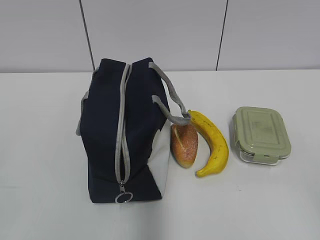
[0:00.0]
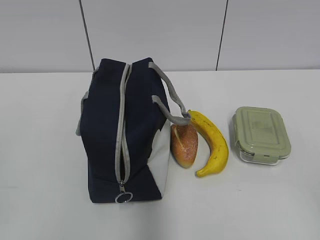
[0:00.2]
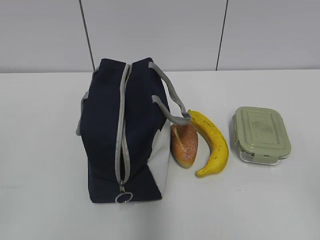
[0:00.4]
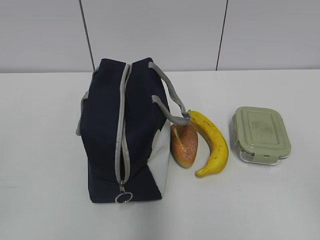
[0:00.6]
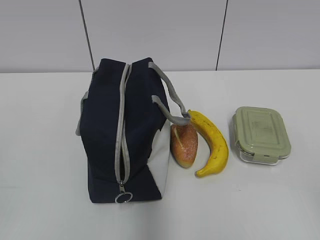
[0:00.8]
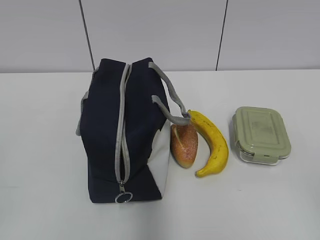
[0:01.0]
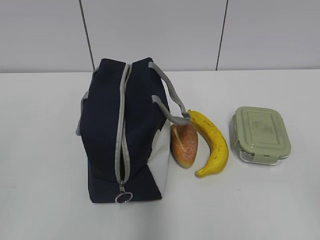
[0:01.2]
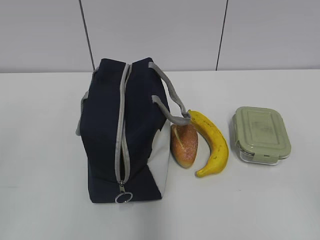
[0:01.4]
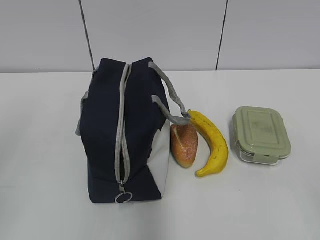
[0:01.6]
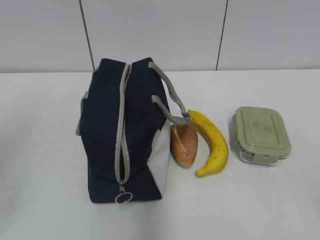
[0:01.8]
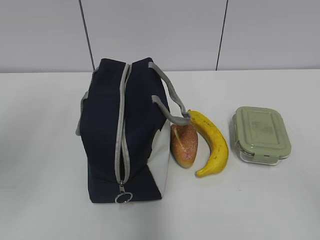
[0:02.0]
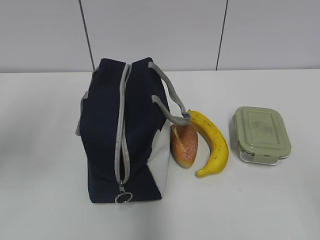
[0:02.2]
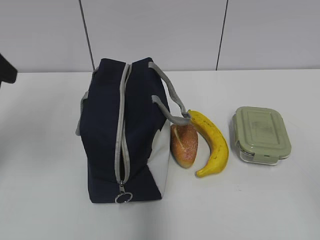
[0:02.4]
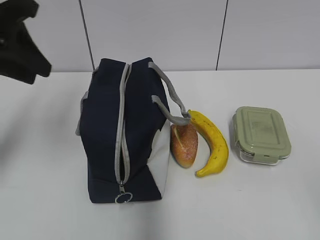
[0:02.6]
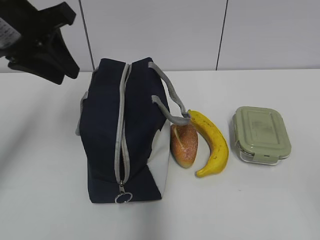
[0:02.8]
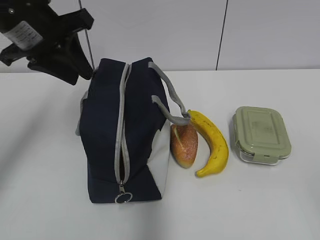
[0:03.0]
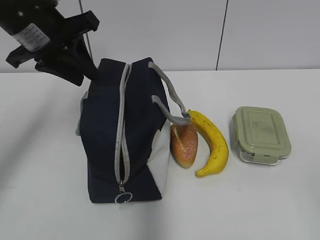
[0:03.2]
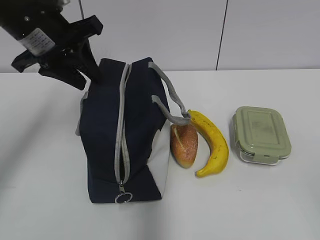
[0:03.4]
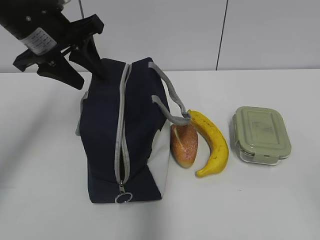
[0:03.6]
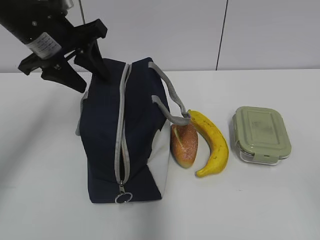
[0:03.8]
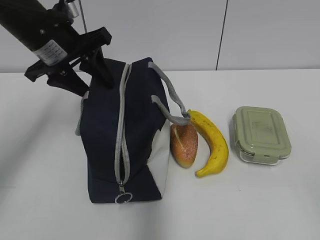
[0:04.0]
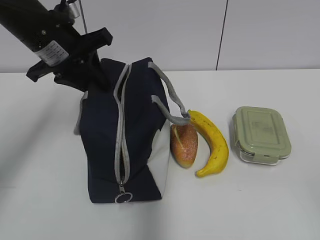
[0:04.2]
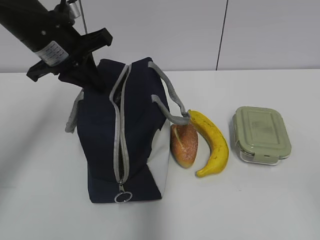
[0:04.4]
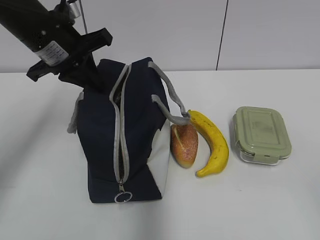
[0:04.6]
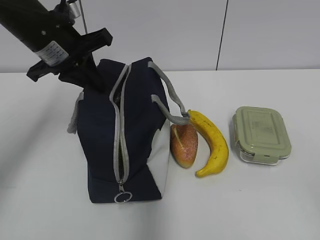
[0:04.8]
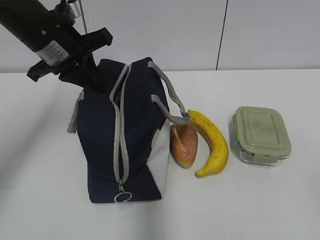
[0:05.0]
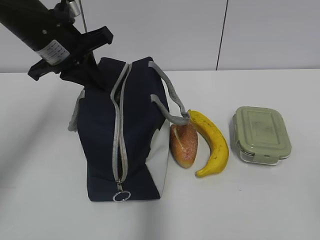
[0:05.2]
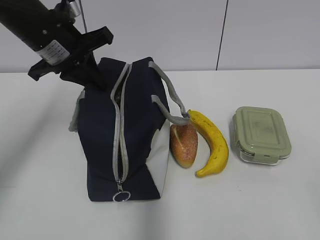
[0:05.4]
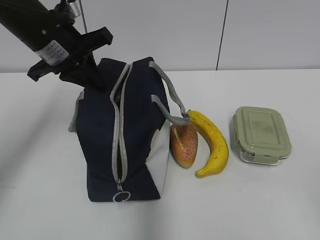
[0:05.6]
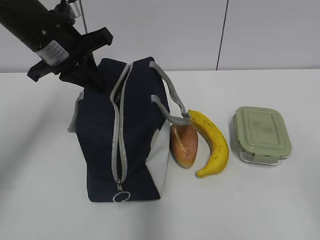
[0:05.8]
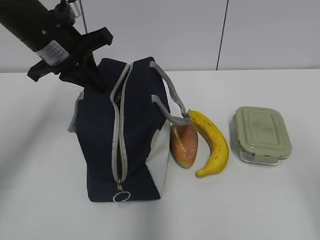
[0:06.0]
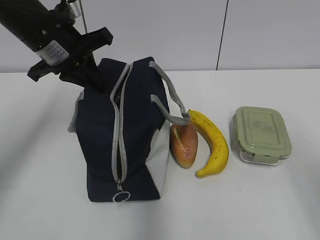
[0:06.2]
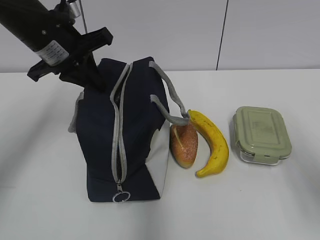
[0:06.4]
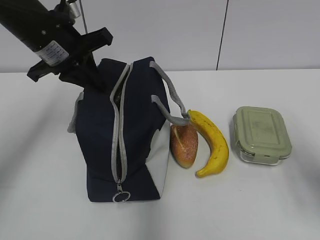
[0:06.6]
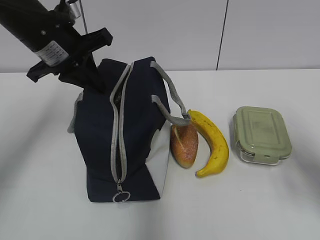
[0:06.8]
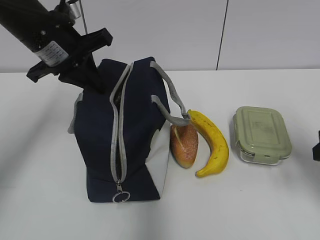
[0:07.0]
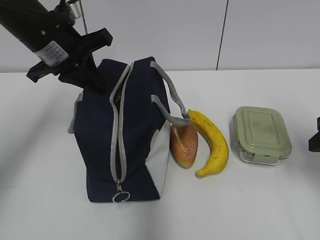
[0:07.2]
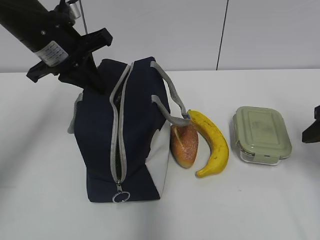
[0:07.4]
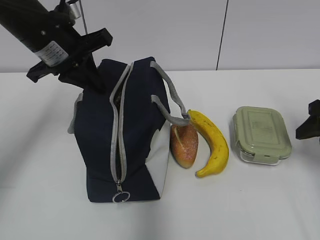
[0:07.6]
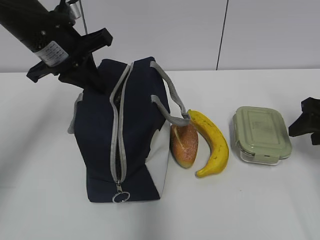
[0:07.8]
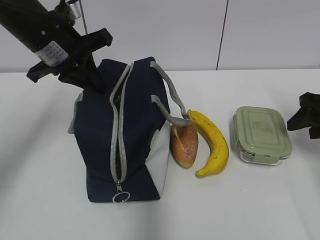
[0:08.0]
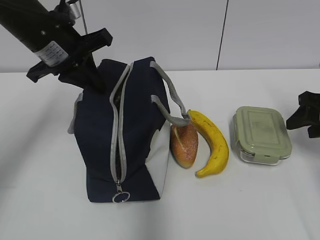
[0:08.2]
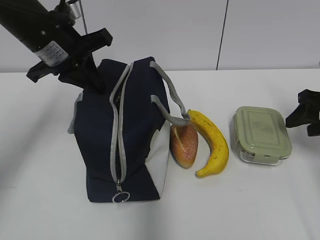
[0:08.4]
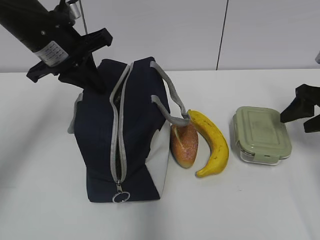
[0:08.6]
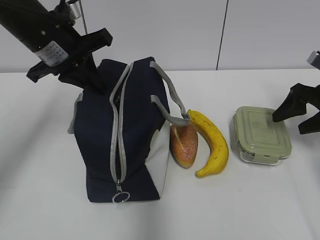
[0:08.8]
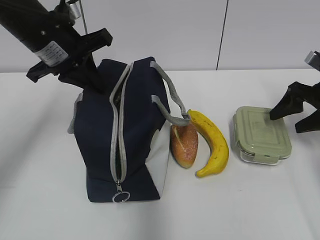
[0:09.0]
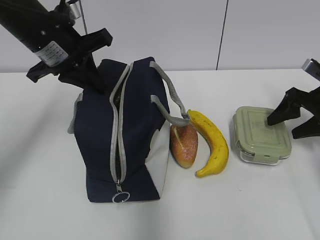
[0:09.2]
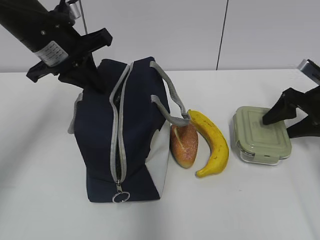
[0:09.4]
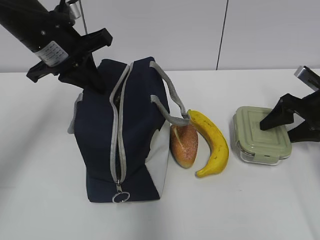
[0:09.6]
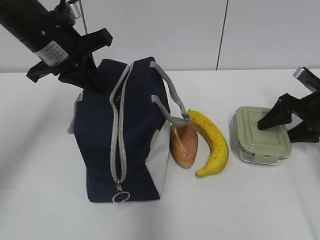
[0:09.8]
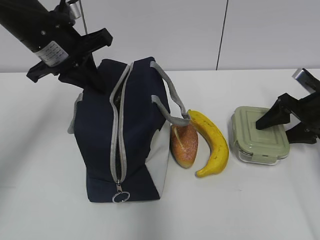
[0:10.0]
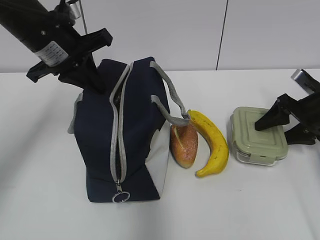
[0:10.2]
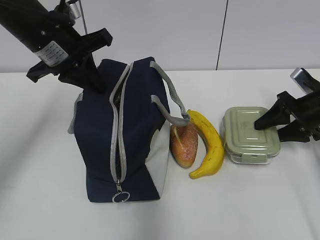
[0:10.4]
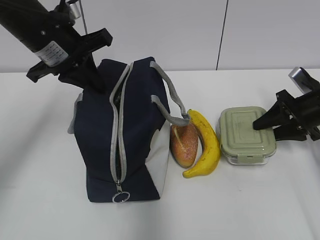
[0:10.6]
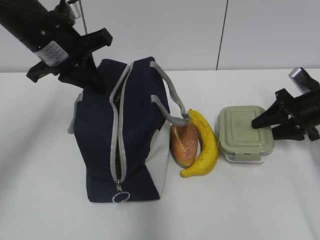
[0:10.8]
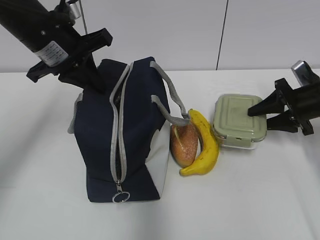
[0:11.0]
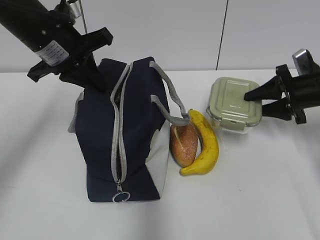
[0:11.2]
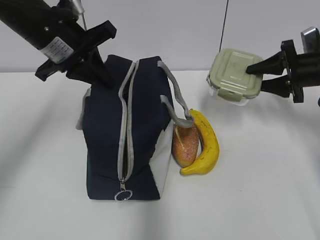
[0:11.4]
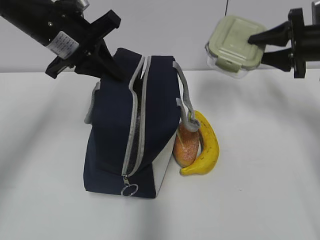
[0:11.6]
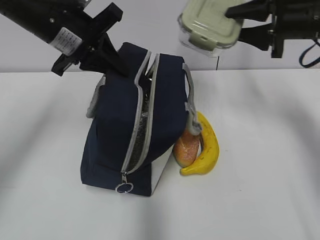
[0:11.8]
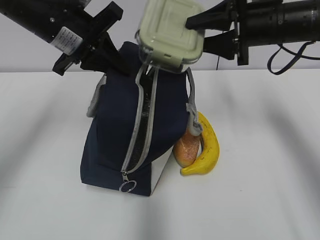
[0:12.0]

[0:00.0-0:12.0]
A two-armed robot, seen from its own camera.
0:01.6 to 0:03.0: The left gripper heads forward and to the right, covering some 30 cm.
0:03.0 to 0:04.4: The left gripper shifts by some 5 cm, and closes up.
0:04.4 to 0:06.0: The right gripper moves forward, about 5 cm.
0:06.0 to 0:07.6: The right gripper shifts roughly 25 cm forward.
0:07.6 to 0:09.0: The right gripper heads forward, covering some 10 cm.
0:09.0 to 0:10.4: The grippers move only a little.
0:10.4 to 0:12.0: The right gripper goes roughly 20 cm upward and to the left.

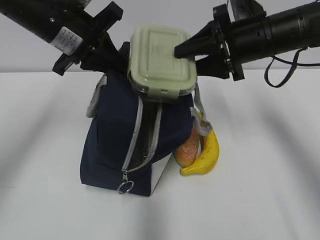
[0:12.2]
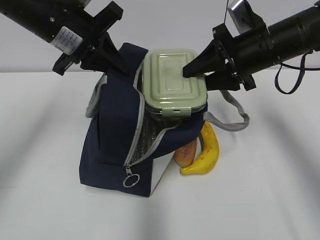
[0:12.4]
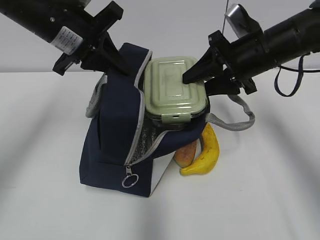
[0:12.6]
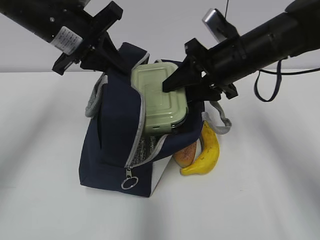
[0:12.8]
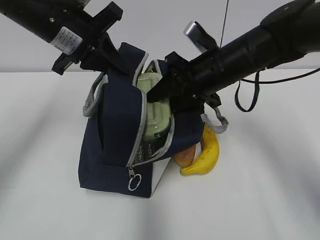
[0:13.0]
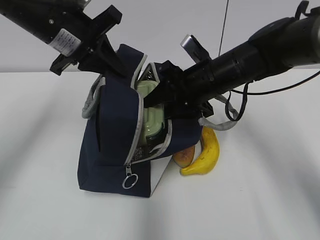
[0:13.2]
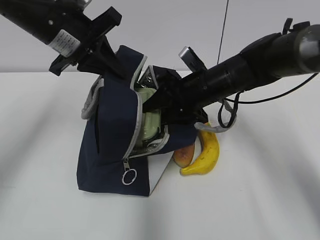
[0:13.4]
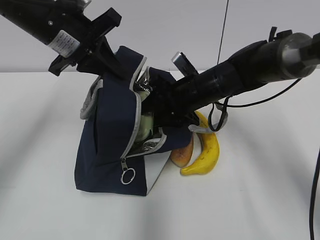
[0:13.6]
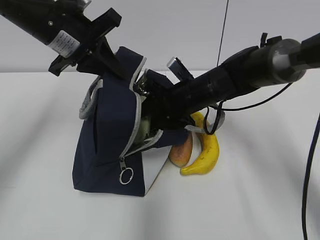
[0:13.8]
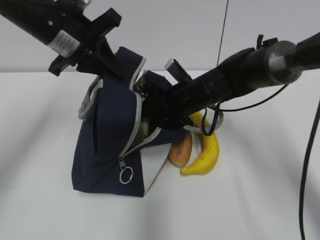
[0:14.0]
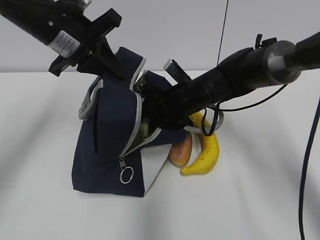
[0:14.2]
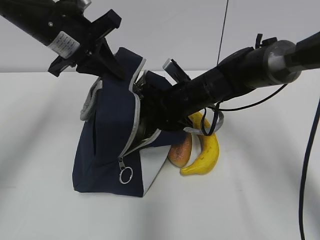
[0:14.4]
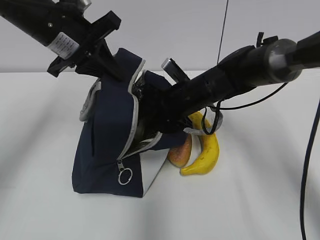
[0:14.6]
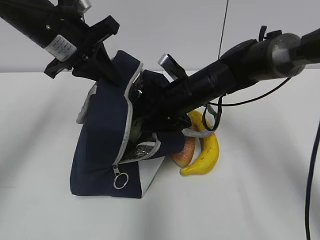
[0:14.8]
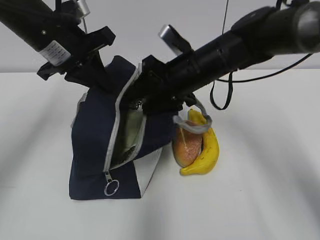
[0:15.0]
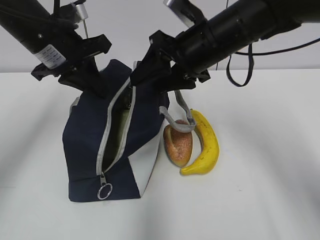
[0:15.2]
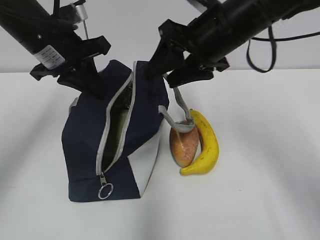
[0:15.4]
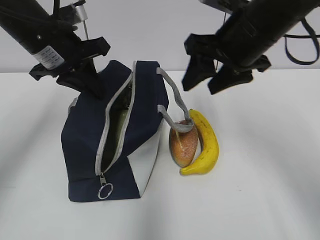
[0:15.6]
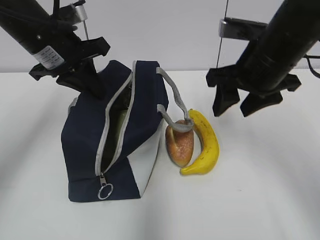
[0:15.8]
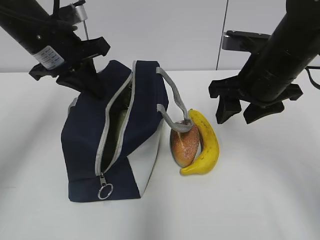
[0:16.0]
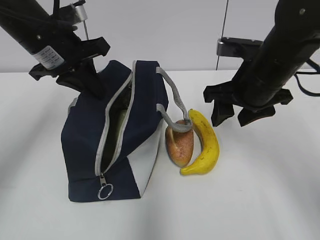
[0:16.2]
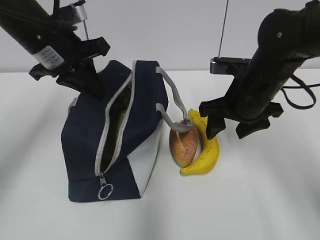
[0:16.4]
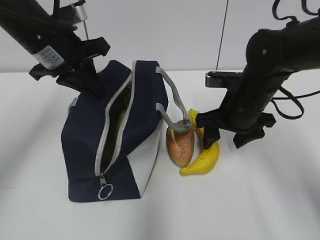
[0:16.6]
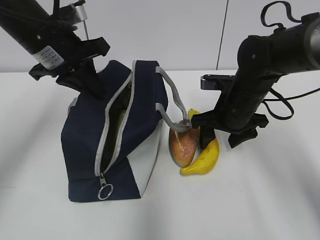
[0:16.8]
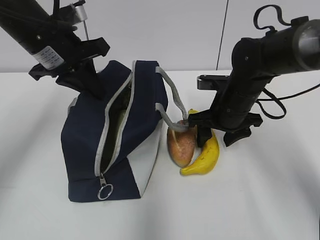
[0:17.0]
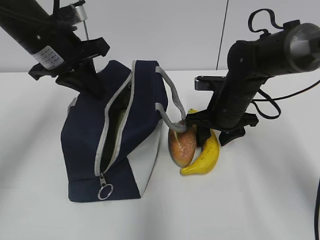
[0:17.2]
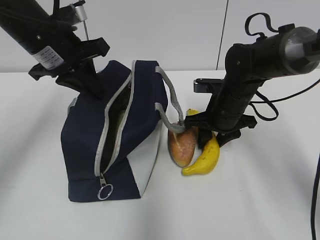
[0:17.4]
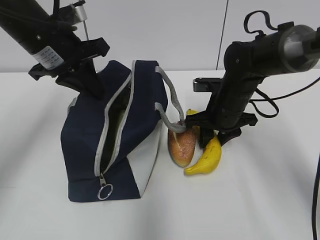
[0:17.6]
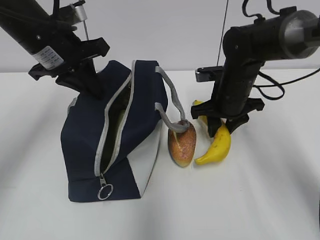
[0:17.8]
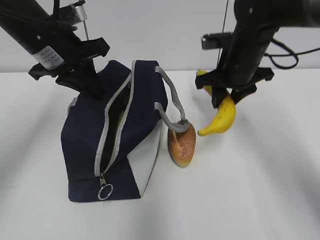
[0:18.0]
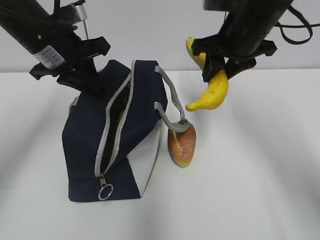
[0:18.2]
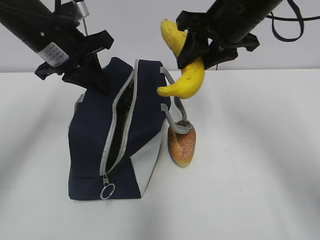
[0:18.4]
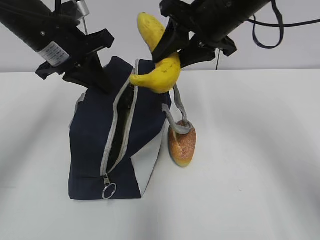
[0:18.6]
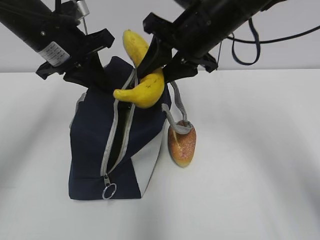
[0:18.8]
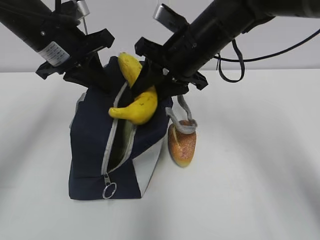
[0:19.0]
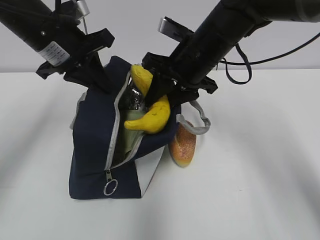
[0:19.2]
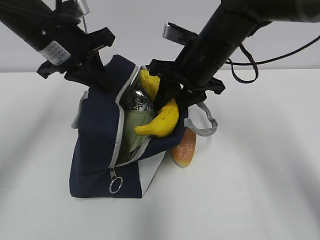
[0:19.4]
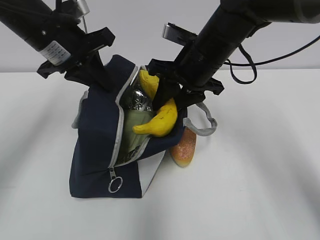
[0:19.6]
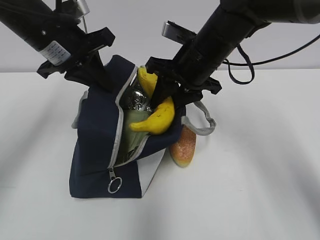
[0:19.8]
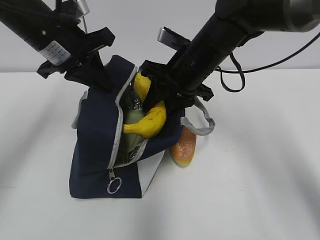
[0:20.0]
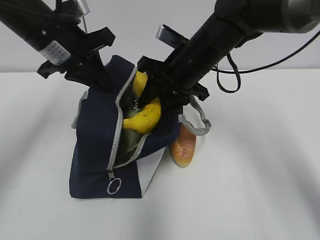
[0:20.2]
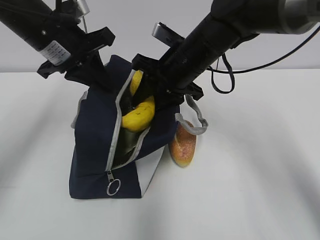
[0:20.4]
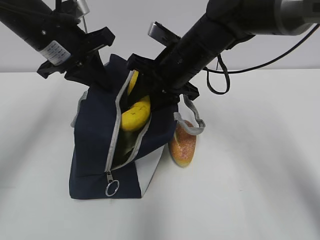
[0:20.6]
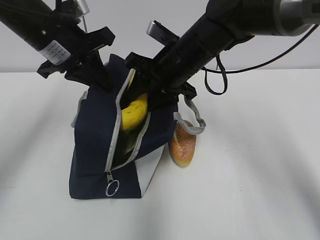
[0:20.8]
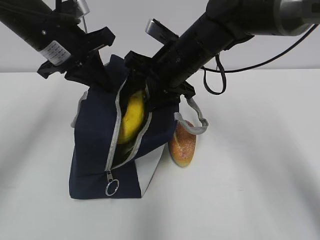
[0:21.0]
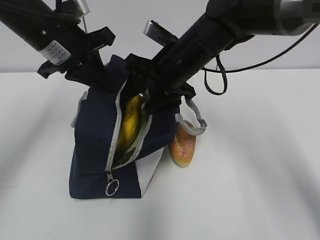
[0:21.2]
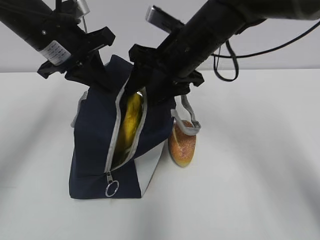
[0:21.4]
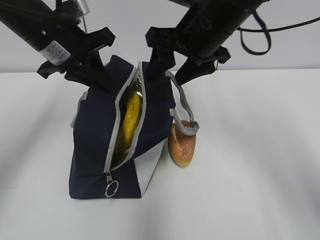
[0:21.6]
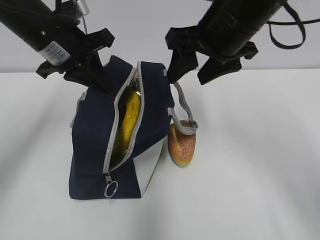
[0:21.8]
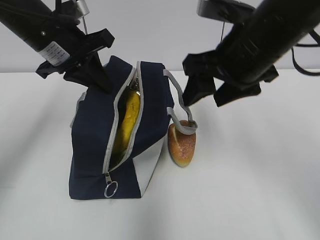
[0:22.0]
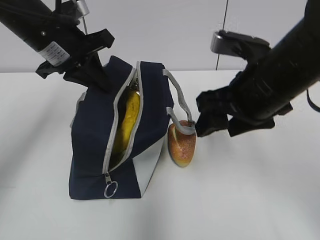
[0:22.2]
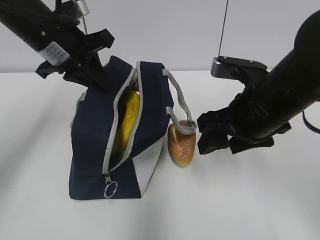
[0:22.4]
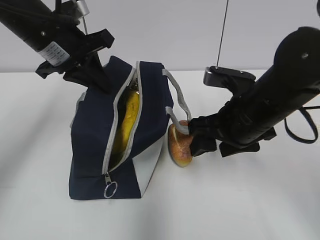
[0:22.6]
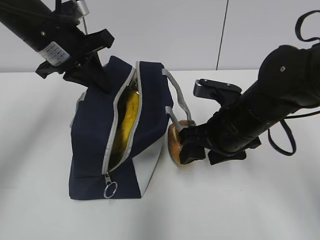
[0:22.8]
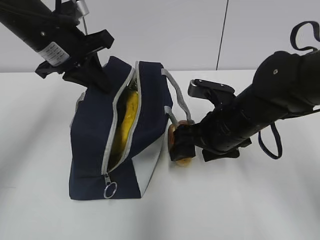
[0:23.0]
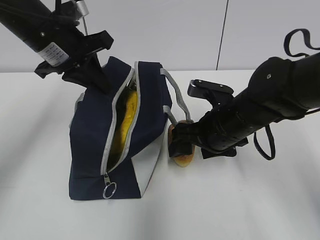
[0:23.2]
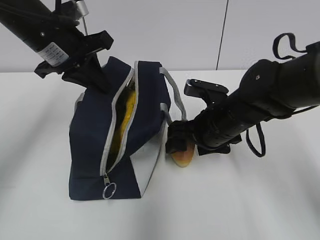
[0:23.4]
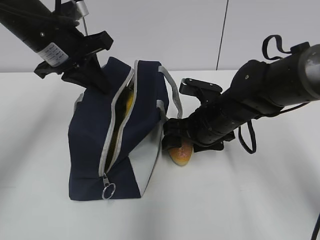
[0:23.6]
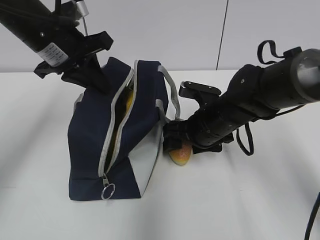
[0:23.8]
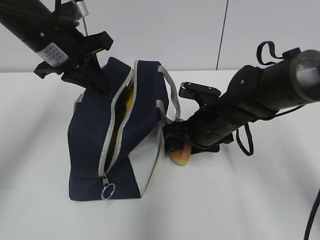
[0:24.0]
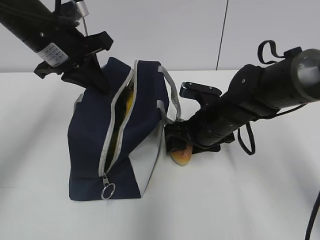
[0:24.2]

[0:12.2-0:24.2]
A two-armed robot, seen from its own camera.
0:12.2 to 0:13.8: The right gripper is displaced downward and to the left by some 15 cm.
0:13.8 to 0:15.2: The right gripper heads upward, covering roughly 10 cm.
0:15.2 to 0:16.6: The right gripper travels downward and to the right by roughly 10 cm.
0:16.6 to 0:18.2: The right gripper goes roughly 10 cm upward, and closes its fingers.
0:18.2 to 0:19.8: The right gripper goes roughly 5 cm to the left.
0:19.8 to 0:21.2: The grippers move only a little.
0:21.2 to 0:22.6: The right gripper shifts about 15 cm backward and to the right.
0:22.6 to 0:24.2: The right gripper is displaced downward and forward by some 10 cm.
